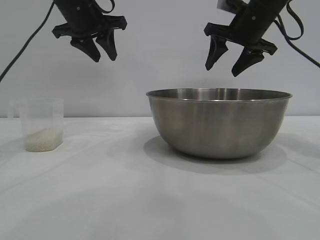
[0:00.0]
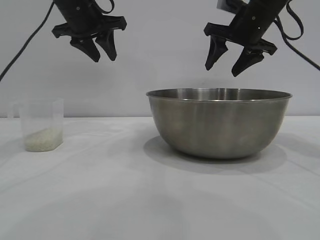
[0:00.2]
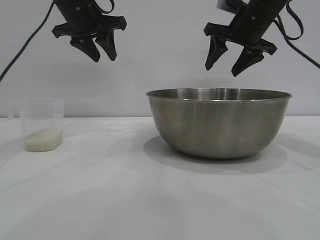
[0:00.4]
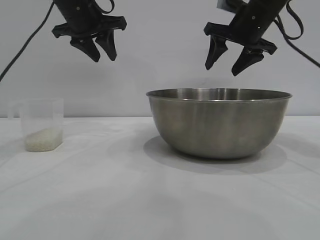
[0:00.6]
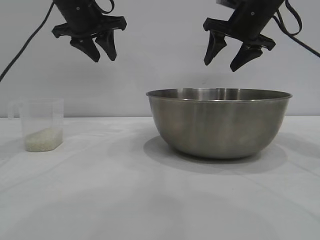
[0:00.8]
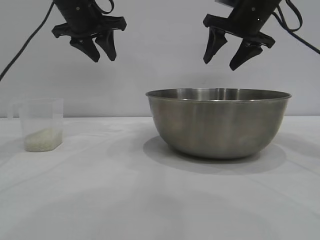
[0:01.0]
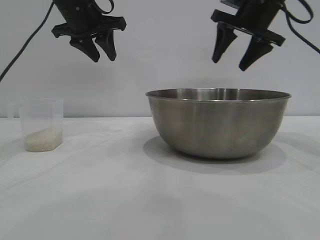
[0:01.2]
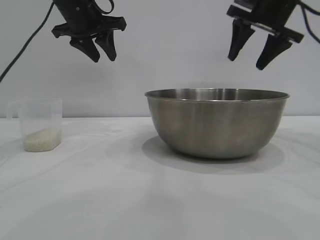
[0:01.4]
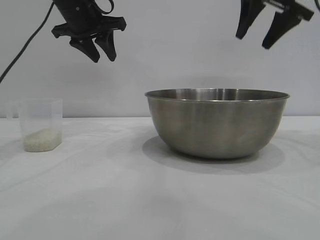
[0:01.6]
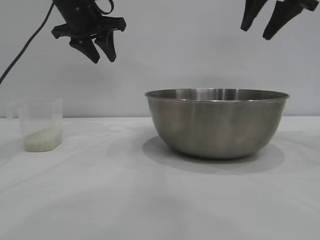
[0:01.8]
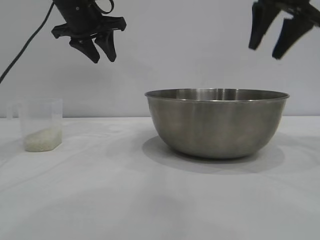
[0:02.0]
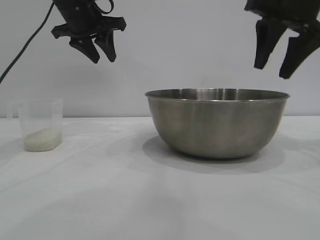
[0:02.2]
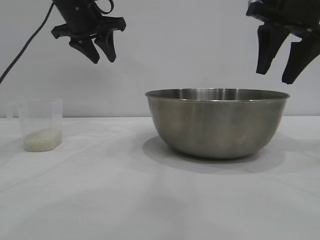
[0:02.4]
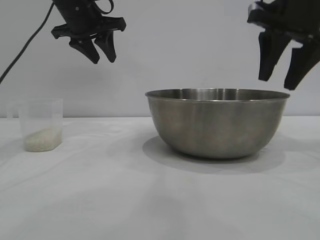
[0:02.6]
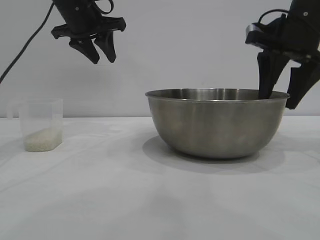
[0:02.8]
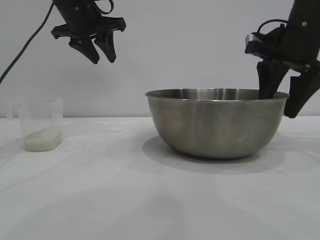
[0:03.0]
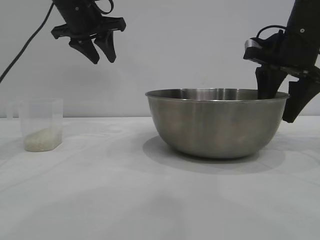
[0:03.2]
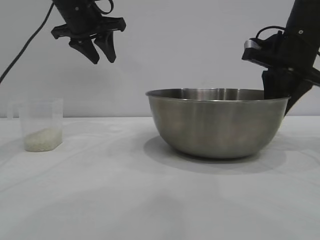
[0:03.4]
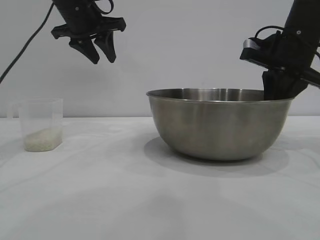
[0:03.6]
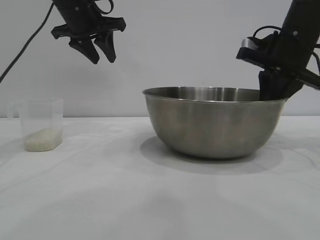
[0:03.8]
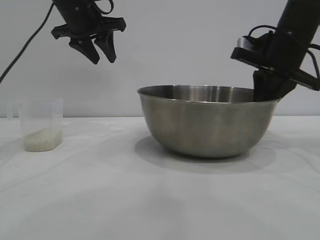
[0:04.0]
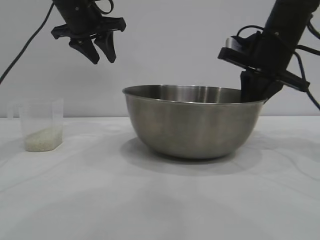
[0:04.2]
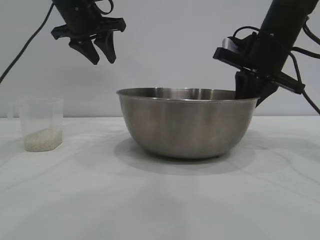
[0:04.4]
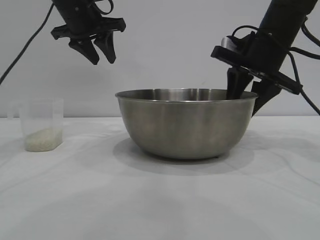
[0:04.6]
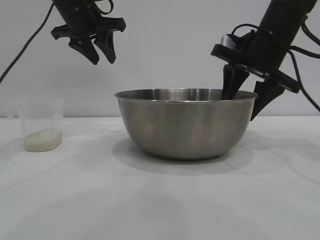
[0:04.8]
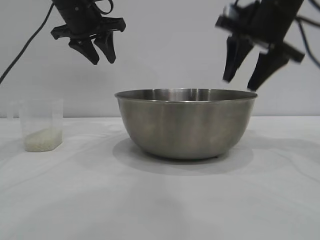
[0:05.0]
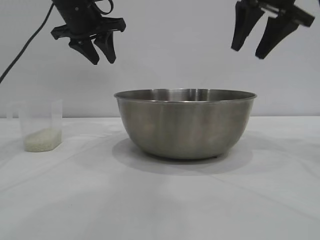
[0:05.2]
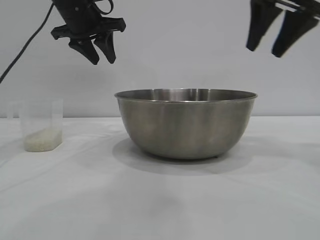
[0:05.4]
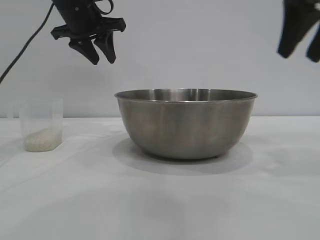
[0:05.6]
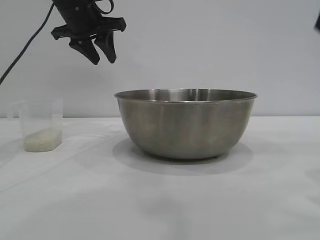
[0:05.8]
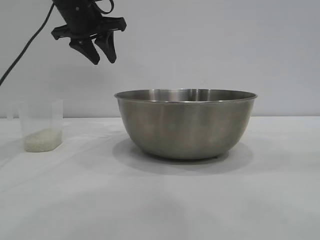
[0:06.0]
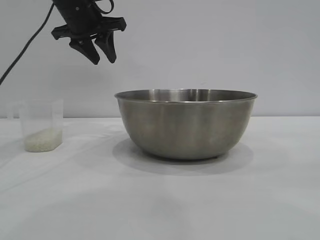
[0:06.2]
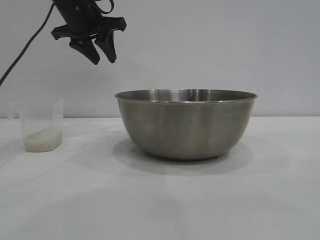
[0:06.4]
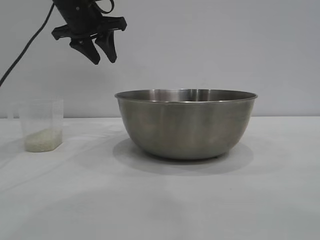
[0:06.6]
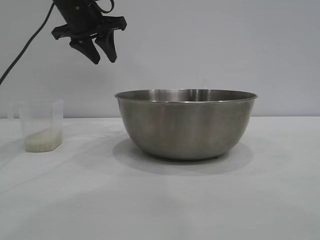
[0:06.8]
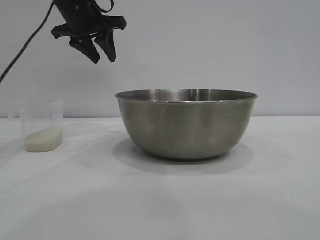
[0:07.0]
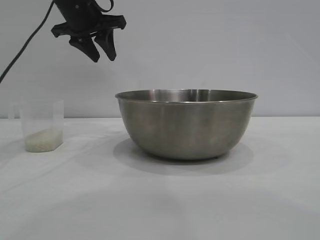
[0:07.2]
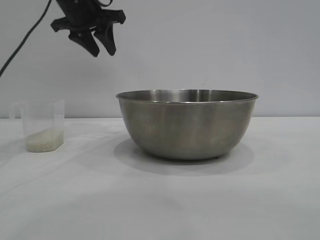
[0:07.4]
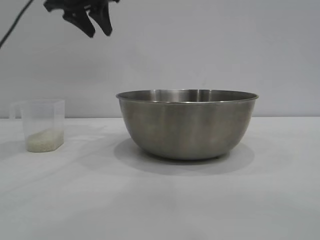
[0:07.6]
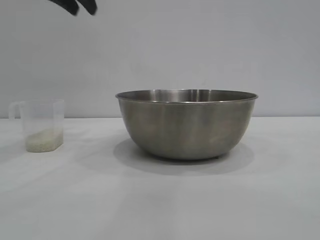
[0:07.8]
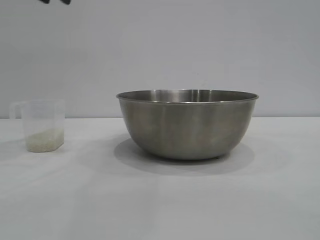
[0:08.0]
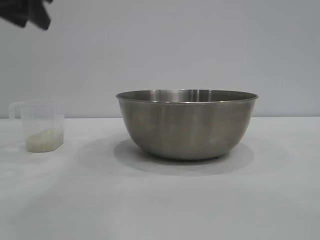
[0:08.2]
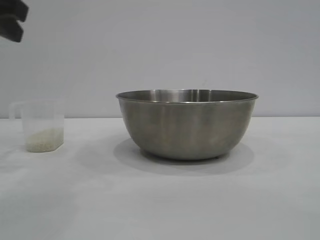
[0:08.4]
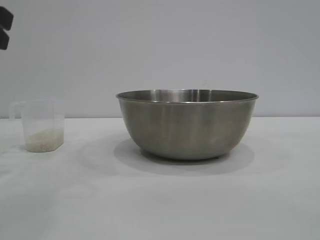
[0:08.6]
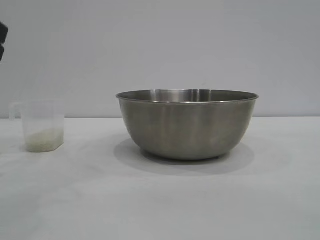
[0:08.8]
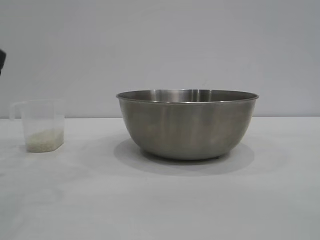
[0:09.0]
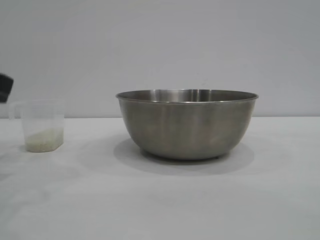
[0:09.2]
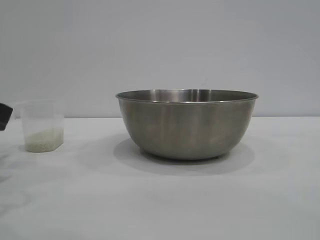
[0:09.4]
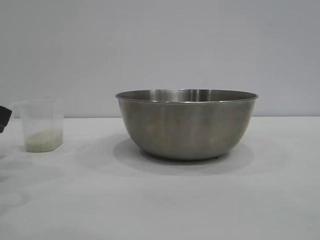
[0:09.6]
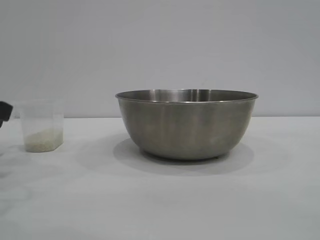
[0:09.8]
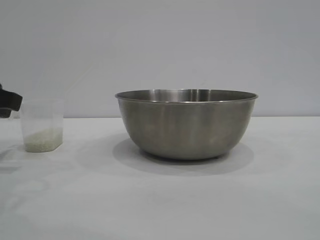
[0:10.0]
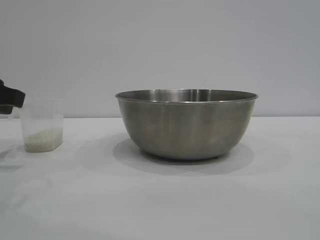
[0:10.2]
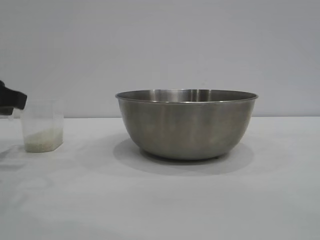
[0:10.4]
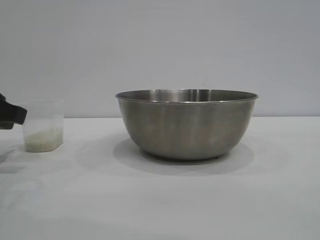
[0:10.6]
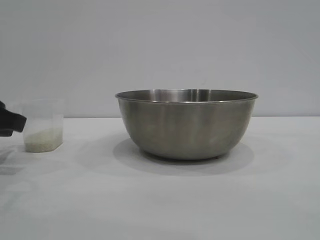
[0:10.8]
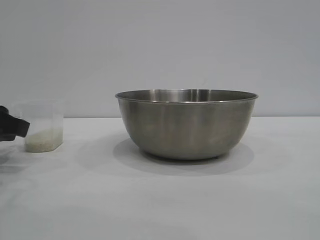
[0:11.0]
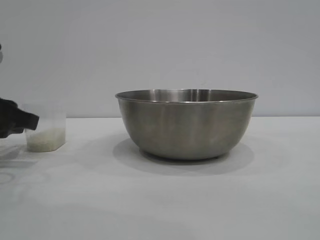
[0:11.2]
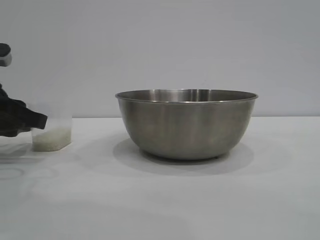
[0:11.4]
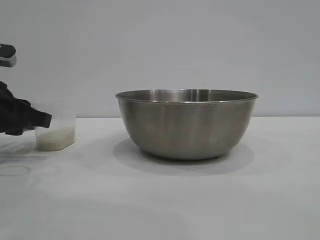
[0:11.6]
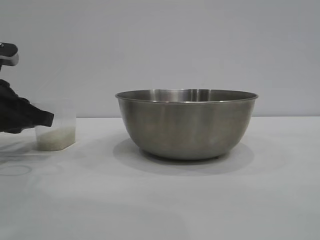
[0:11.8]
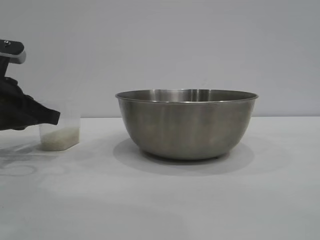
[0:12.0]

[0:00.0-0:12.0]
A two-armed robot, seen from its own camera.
Task of the whole recording: the right gripper grasp the rice container and place it in the center of the table, the left gripper grasp the rice scoop and pour the rice into the rice container.
Step, 0:00.0 to 0:05.0: Move the bowl to the center of view with the right gripper.

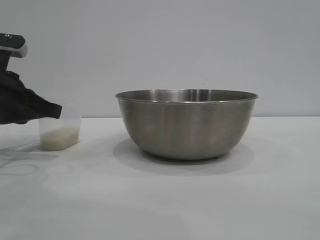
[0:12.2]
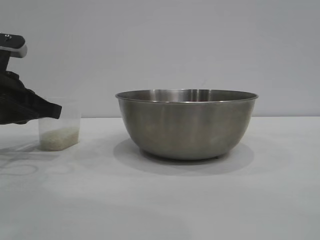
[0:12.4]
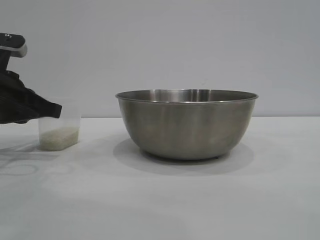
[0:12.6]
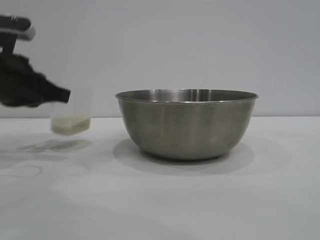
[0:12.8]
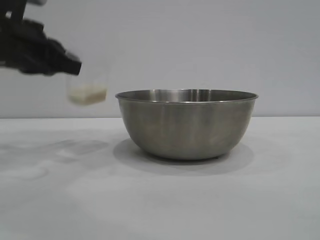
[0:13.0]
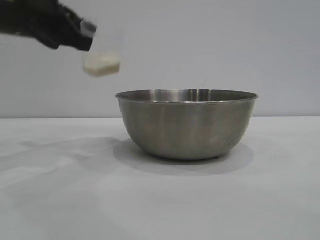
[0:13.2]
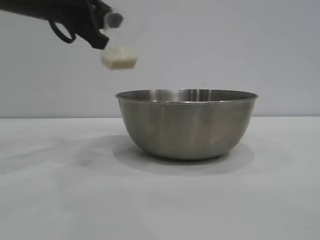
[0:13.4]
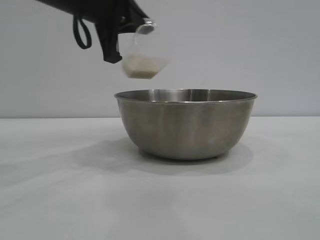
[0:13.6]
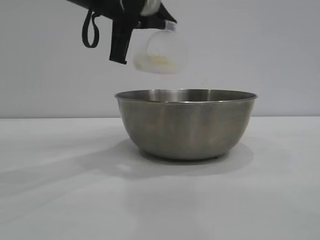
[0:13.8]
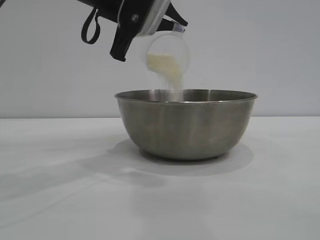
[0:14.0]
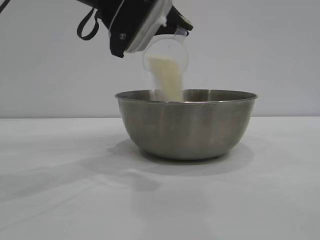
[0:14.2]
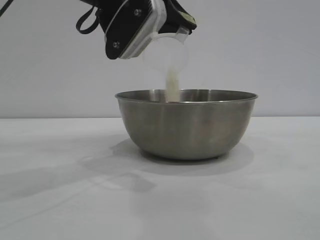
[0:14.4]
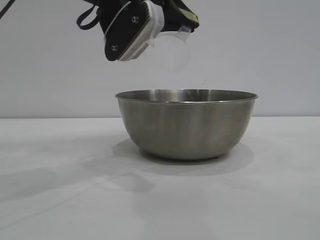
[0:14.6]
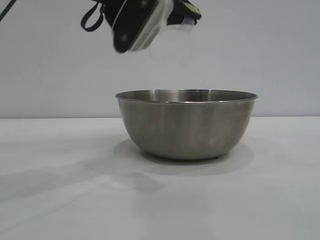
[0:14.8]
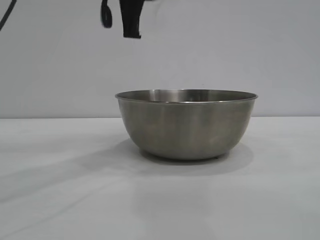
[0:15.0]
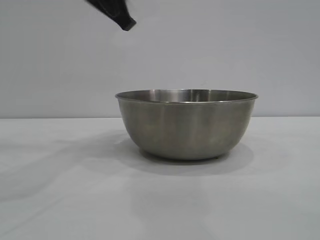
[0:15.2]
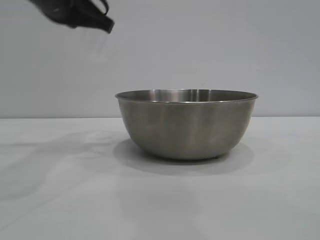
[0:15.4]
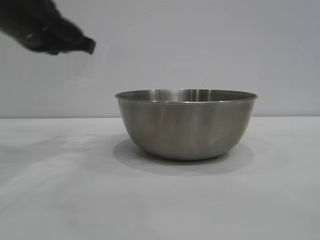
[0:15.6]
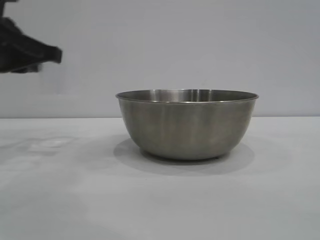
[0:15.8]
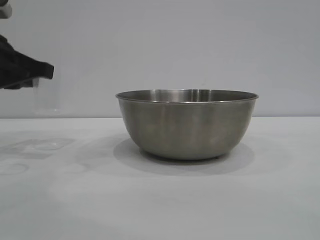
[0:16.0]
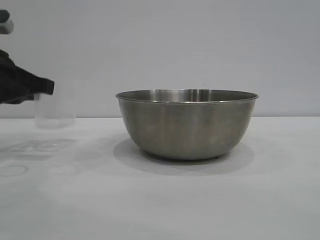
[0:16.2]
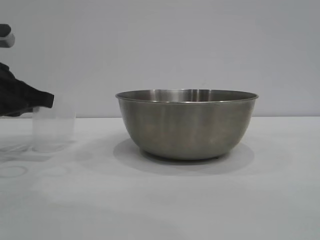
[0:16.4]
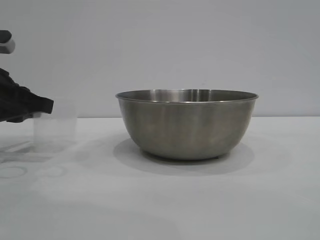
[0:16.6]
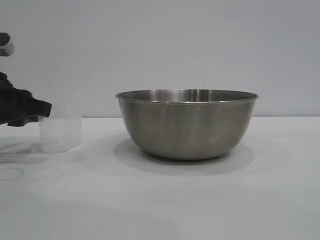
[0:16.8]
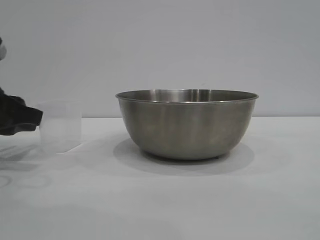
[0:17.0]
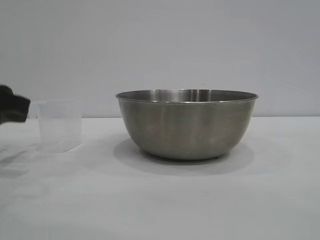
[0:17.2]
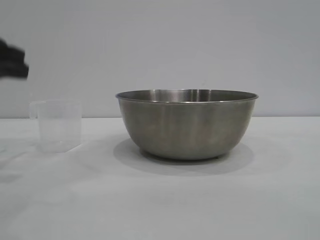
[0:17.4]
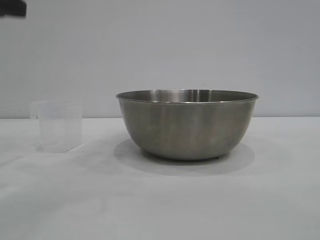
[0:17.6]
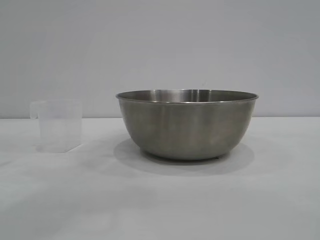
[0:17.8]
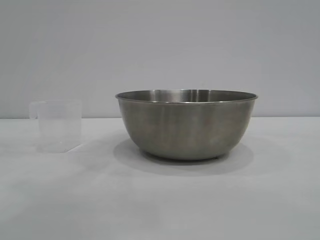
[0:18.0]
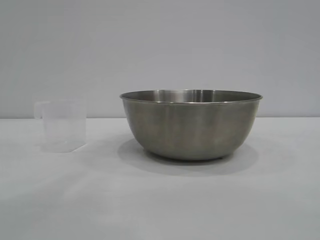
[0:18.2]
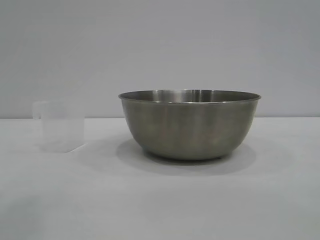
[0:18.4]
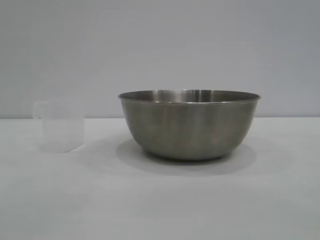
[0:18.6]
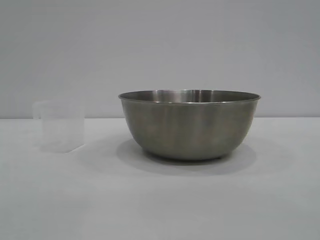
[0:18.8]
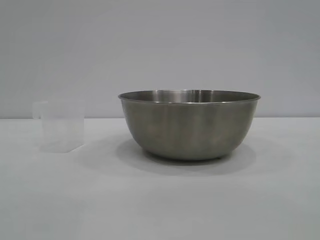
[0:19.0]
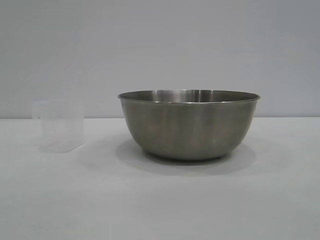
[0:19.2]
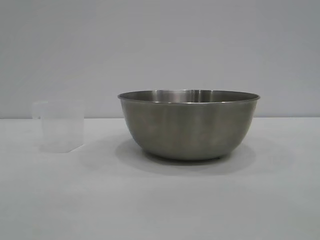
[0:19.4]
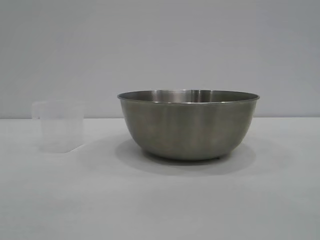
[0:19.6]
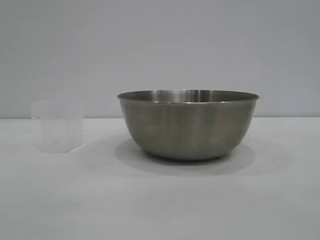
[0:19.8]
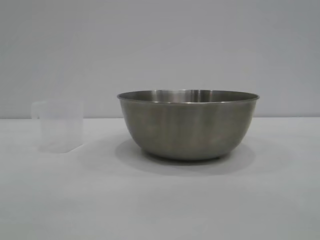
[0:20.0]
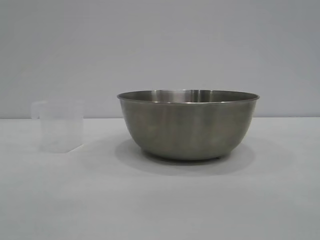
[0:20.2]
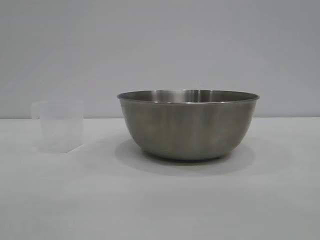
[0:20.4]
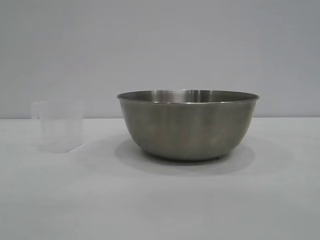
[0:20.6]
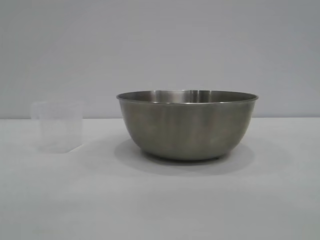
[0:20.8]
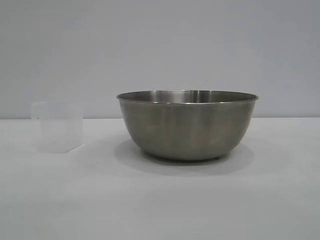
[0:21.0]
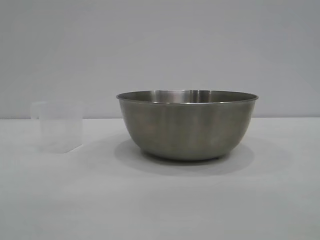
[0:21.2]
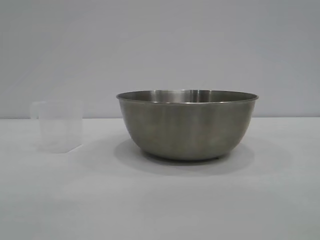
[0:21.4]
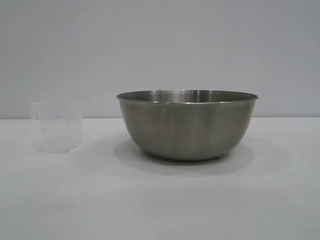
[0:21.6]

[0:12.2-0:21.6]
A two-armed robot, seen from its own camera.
Task of the whole recording: the right gripper grasp the rice container and place it in the center of the table, the left gripper grasp the rice scoop and pour the rice into the rice container.
Step, 0:13.0 to 0:14.8: Pour the rice from the cup into the bowl with the left gripper.
Step, 0:15.0 to 0:16.8: Place the cup on the table with the left gripper.
